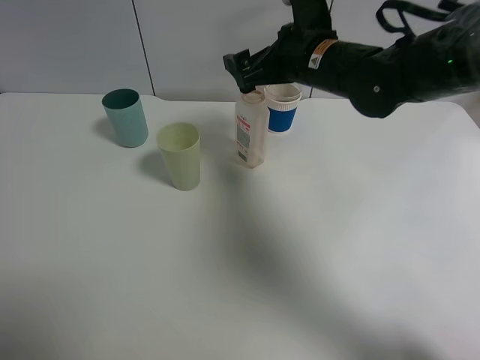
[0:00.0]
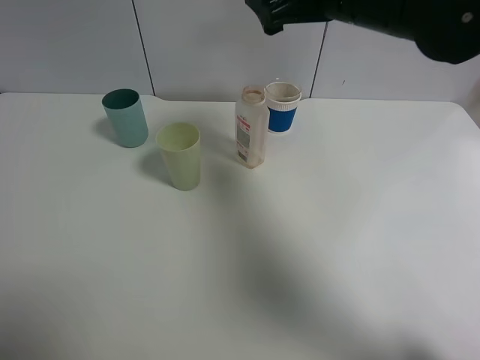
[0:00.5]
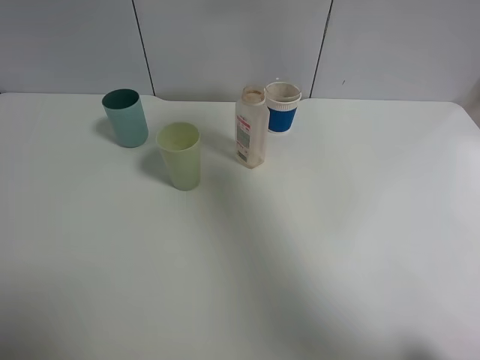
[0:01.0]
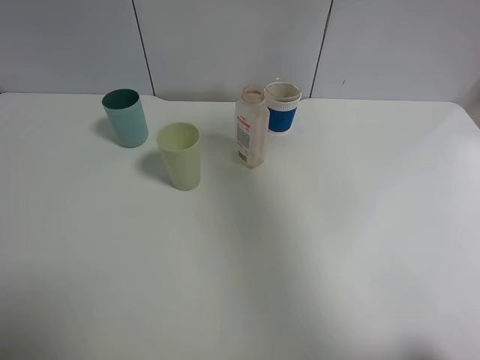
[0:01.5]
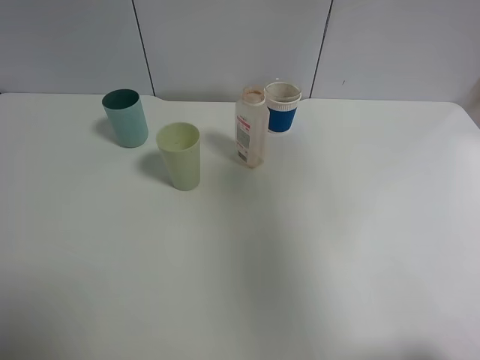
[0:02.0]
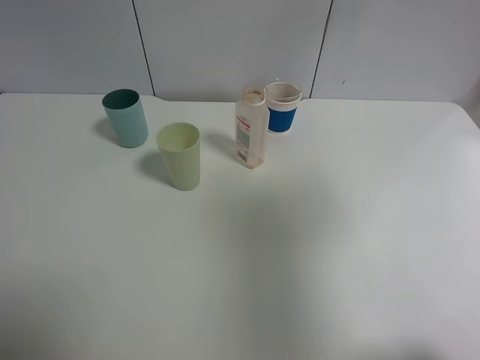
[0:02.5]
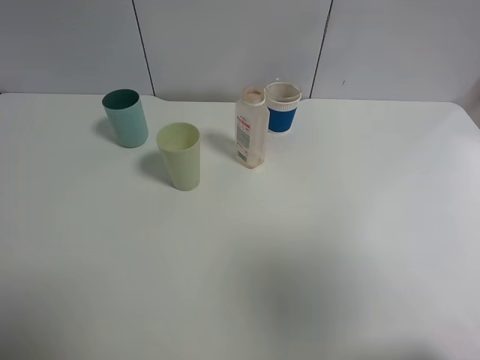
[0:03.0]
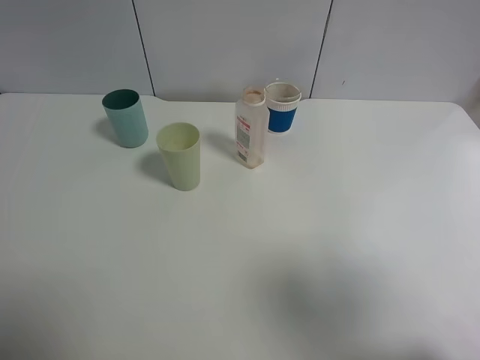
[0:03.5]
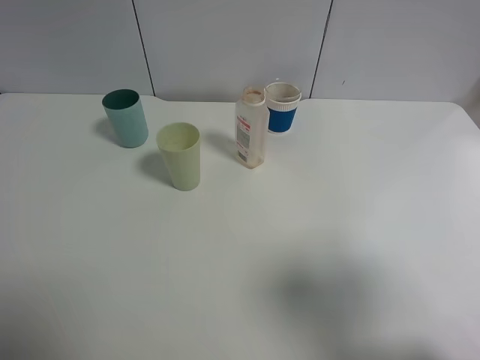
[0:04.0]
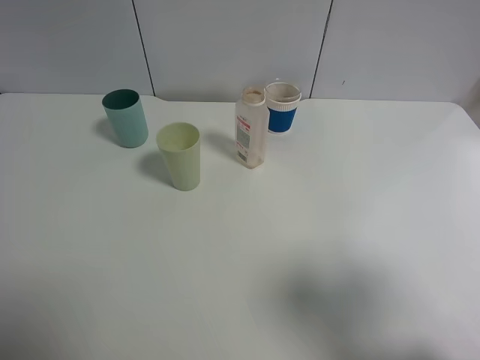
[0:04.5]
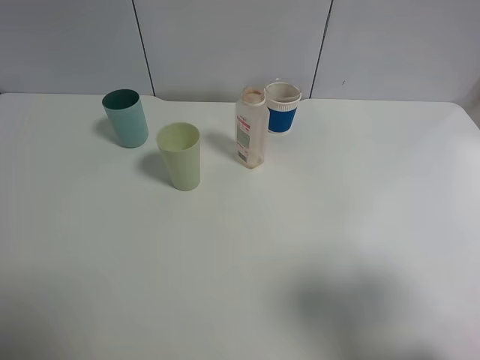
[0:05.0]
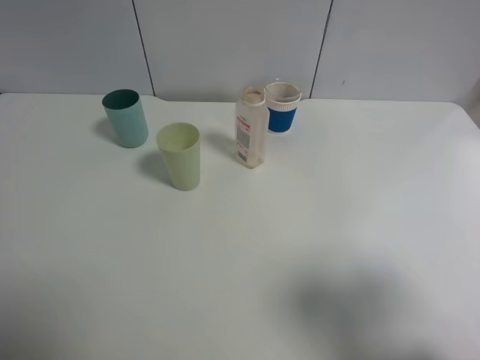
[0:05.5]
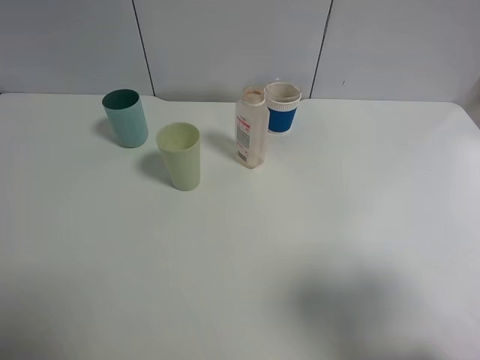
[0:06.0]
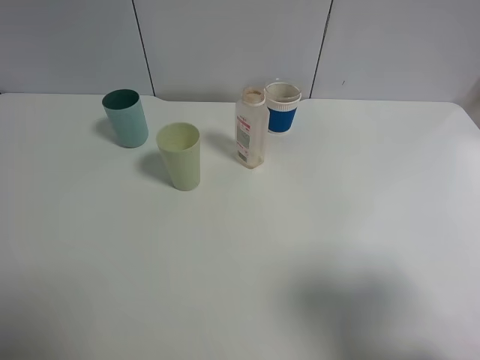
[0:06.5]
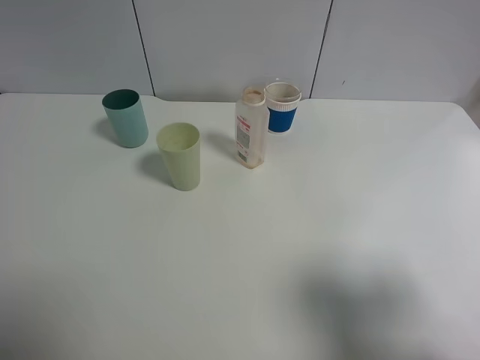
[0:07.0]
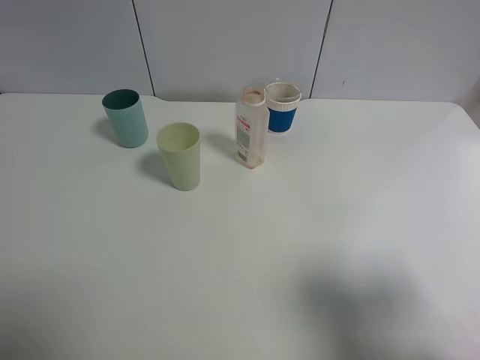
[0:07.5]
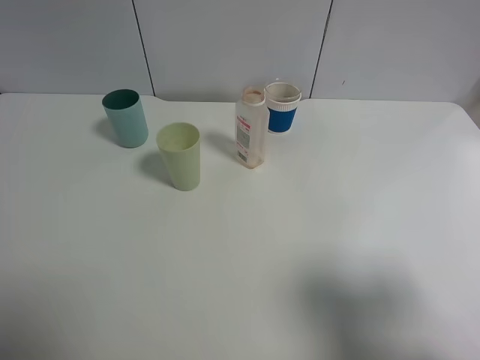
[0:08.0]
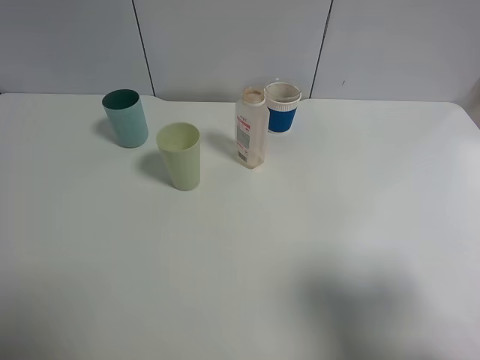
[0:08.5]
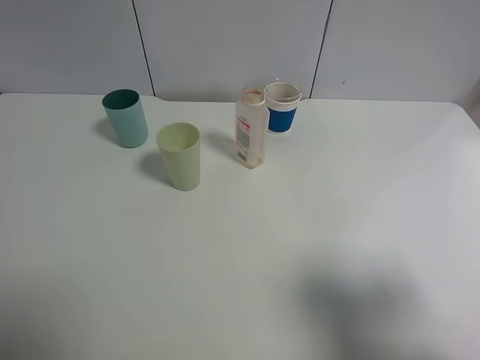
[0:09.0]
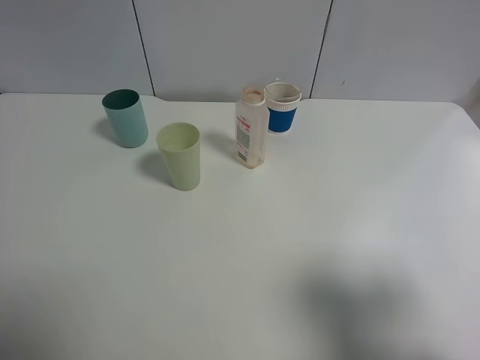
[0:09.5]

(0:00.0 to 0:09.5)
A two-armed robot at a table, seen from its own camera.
Task of the whole recording: use a gripper to hold the bottle of the drink and pour it into a random cup.
0:00.0 - 0:02.0: The right gripper moves upward, backward and to the right, about 35 cm.
0:02.0 - 0:04.0: The right gripper moves downward and backward, some 20 cm.
0:07.5 - 0:09.5: Neither gripper changes place.

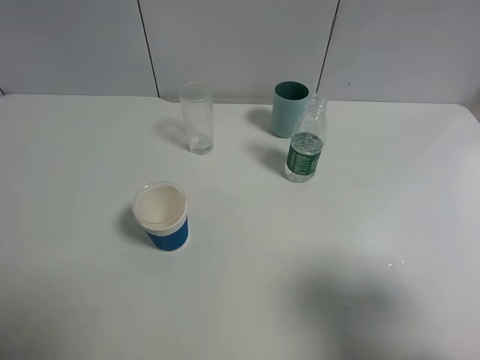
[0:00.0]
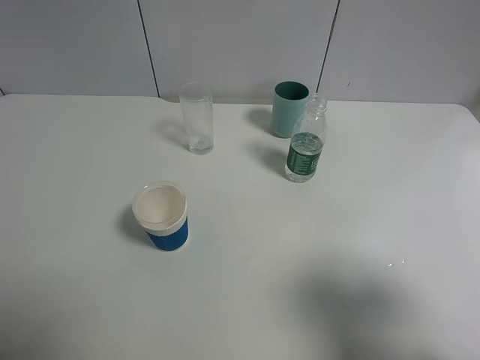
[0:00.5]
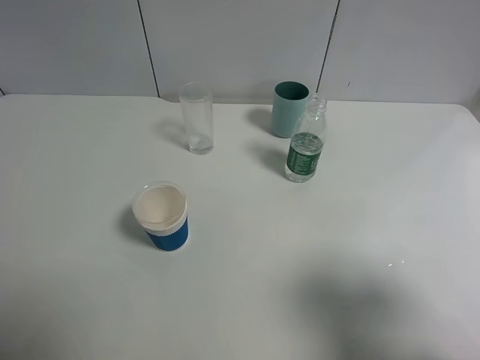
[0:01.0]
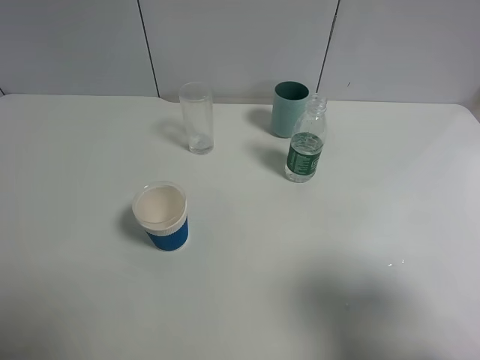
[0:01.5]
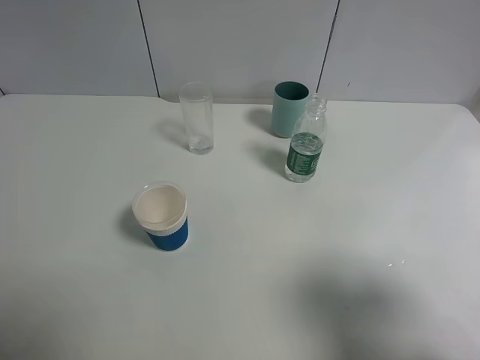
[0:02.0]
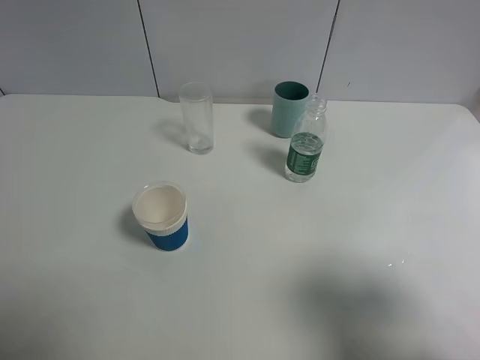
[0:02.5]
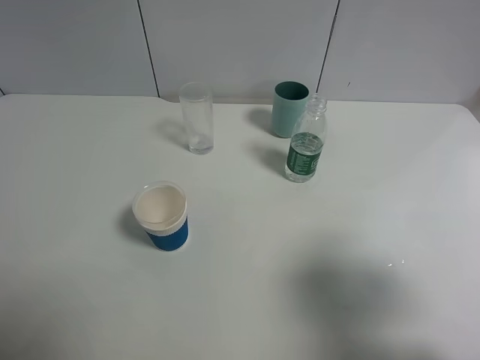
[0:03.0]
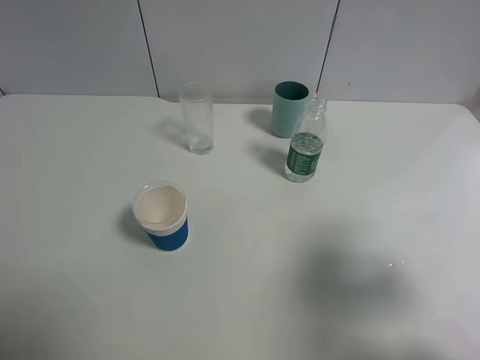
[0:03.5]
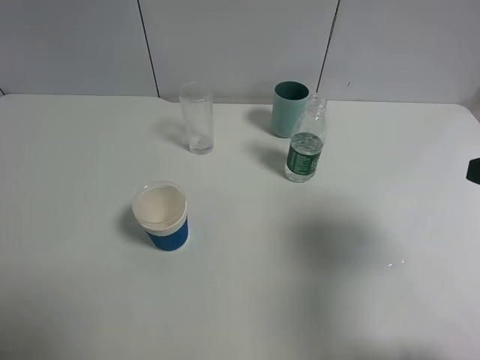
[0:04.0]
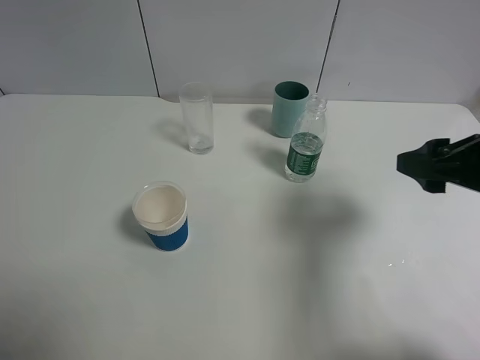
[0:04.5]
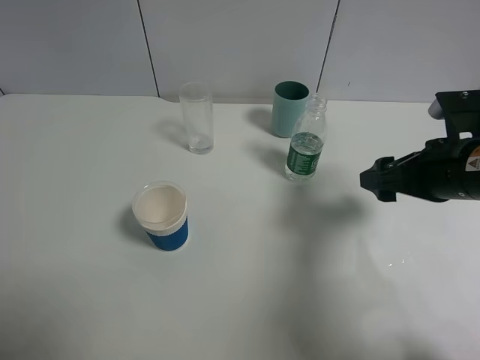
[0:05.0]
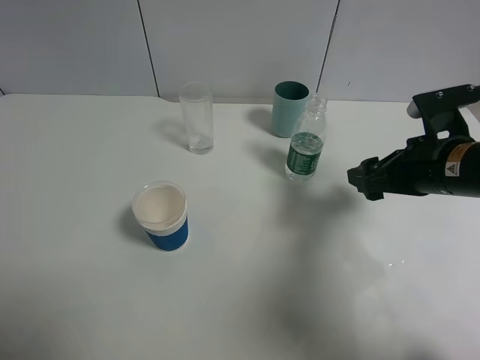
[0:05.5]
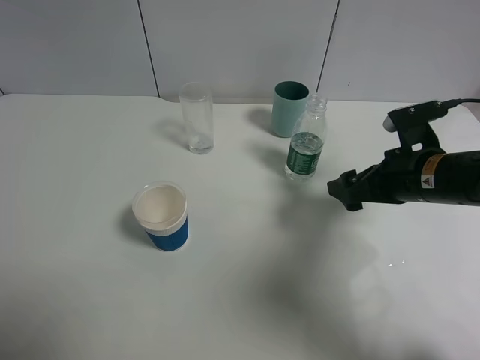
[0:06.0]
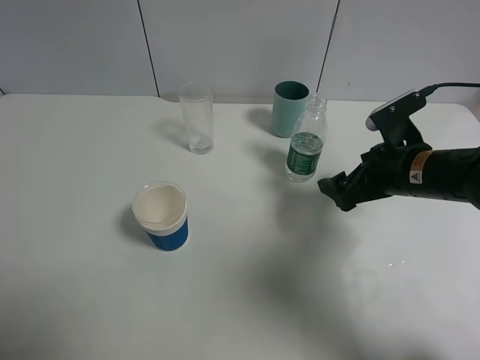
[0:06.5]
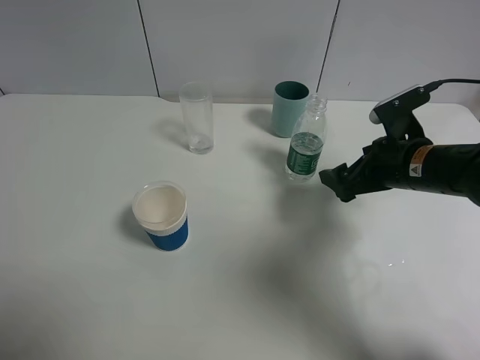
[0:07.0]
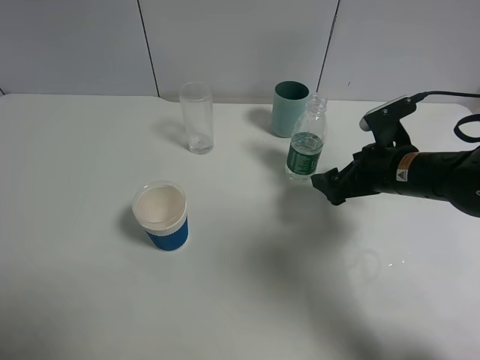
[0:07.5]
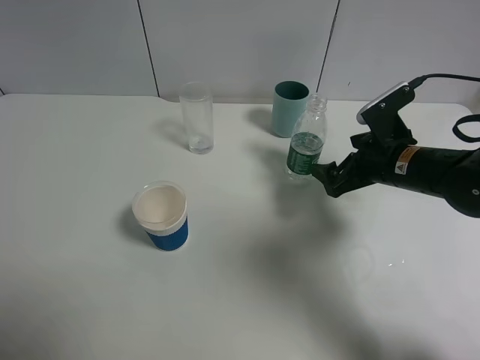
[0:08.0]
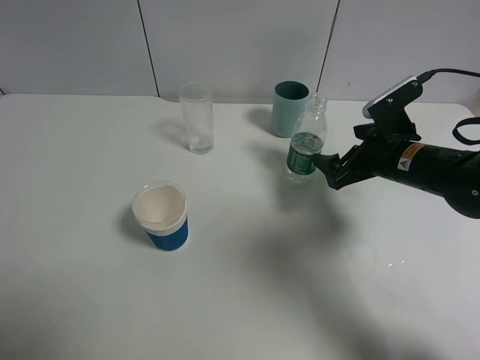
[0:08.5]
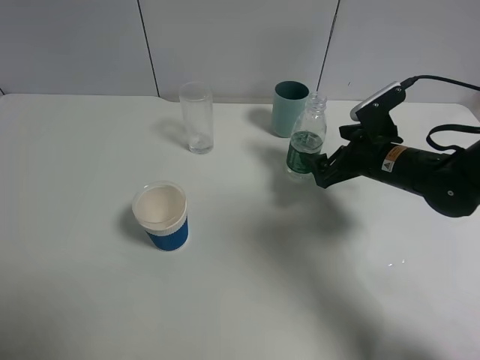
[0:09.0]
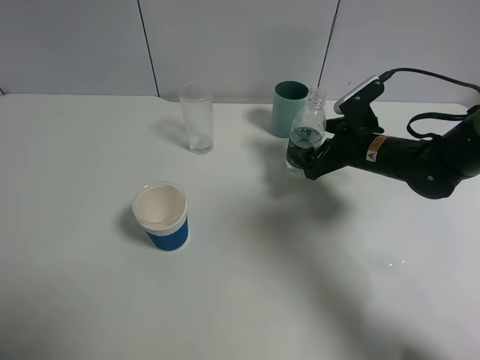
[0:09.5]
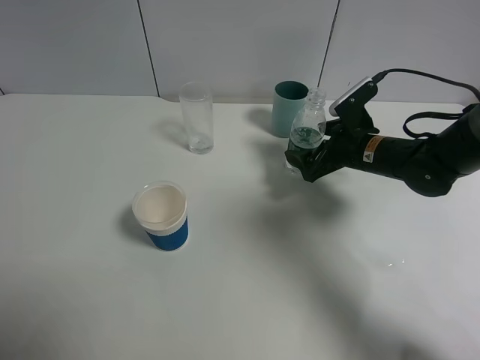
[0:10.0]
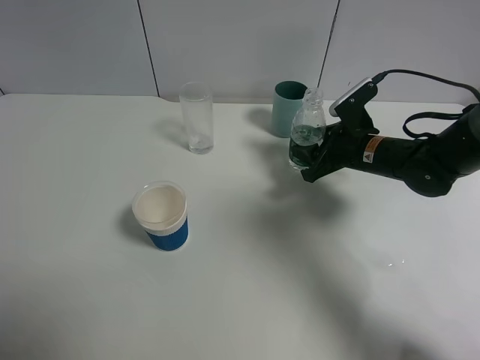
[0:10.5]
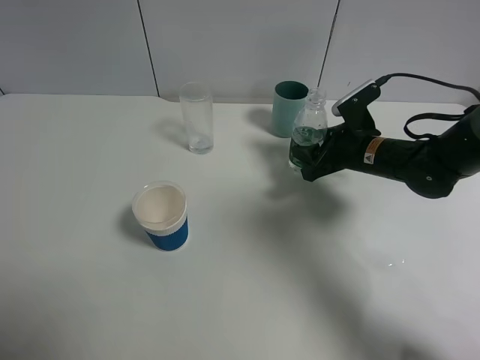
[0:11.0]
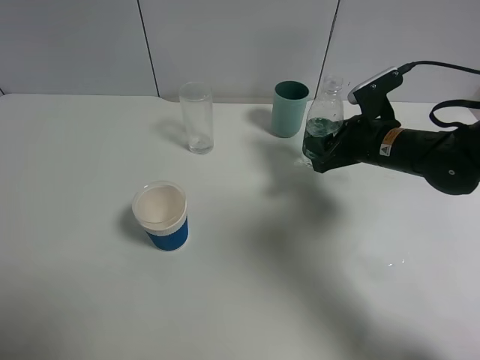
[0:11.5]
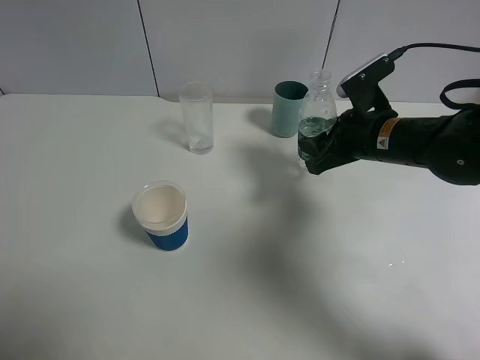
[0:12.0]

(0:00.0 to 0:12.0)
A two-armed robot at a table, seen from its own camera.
Task of the whole recording: use a gripper to hold the bottle of the drink and pour it into a random cup.
Step, 0:00.0 - 0:10.0: Grasp the mineral water bottle with the right gripper.
0:00.0 - 0:02.0: Both grippers stay put.
0:02.0 - 0:04.0: The right gripper moves forward, approximately 10 cm.
0:04.0 - 0:06.0: The right gripper heads downward, forward and to the left, covering approximately 20 cm.
0:08.0 - 0:10.0: The right gripper is displaced forward by about 5 cm.
0:10.0 - 0:12.0: The right gripper moves upward, roughly 5 cm, and closes its fingers.

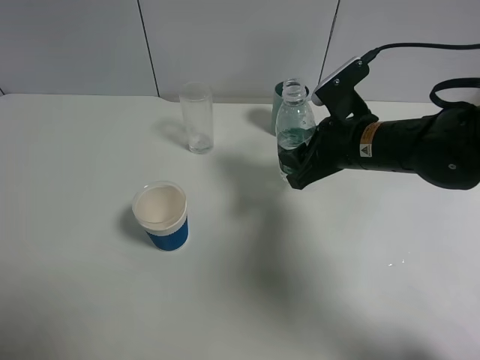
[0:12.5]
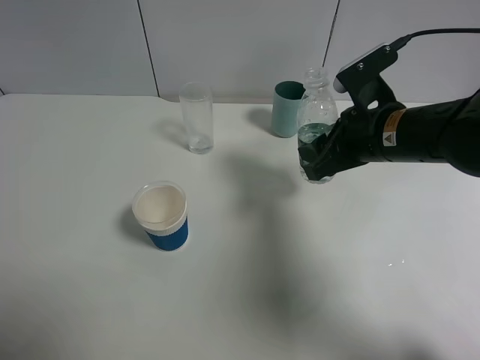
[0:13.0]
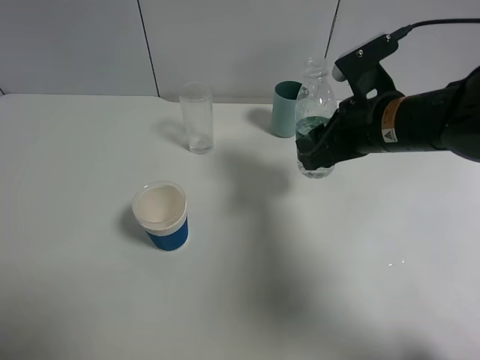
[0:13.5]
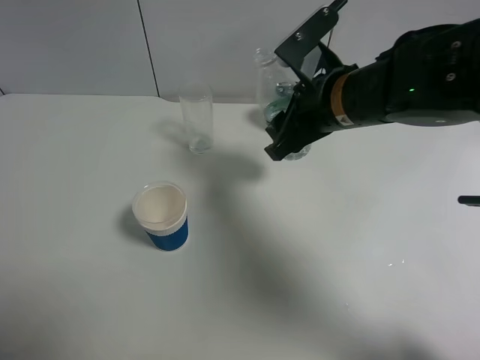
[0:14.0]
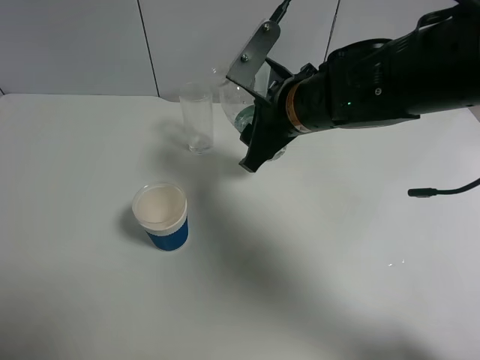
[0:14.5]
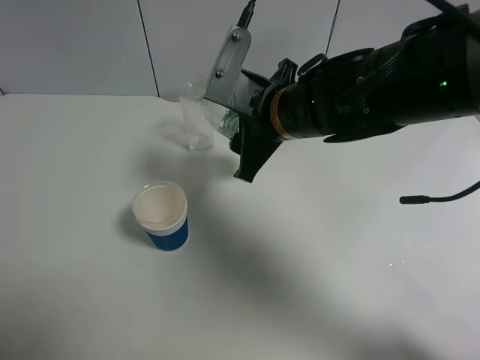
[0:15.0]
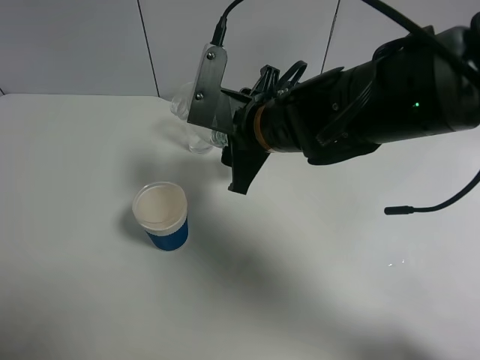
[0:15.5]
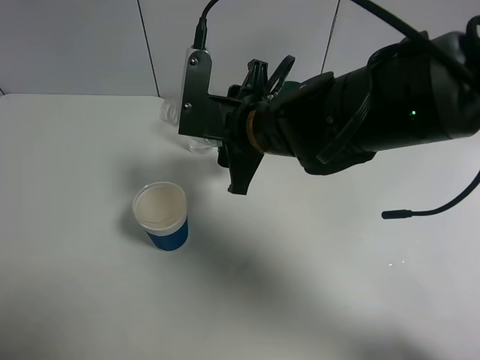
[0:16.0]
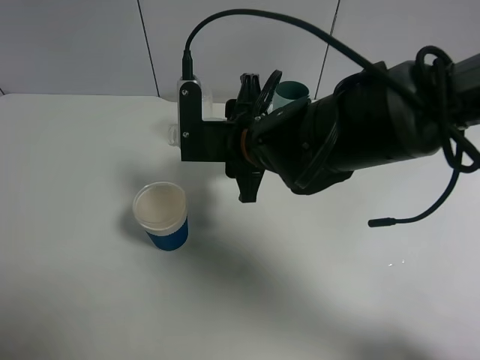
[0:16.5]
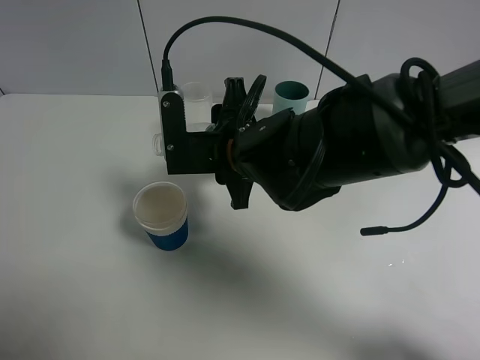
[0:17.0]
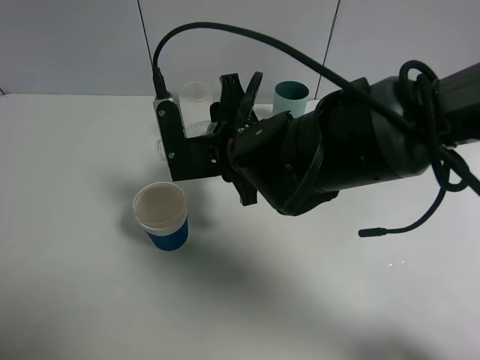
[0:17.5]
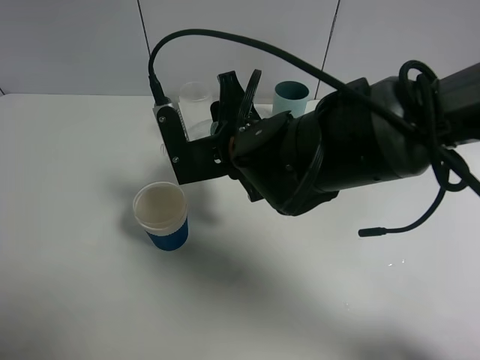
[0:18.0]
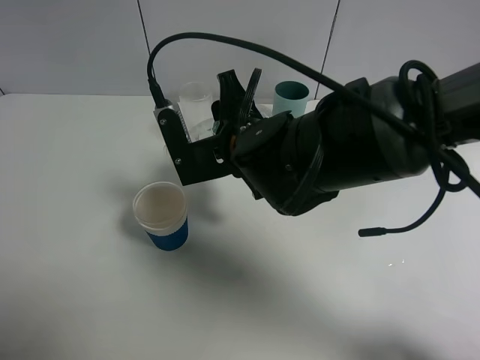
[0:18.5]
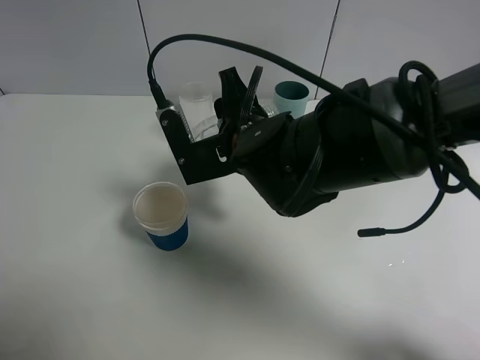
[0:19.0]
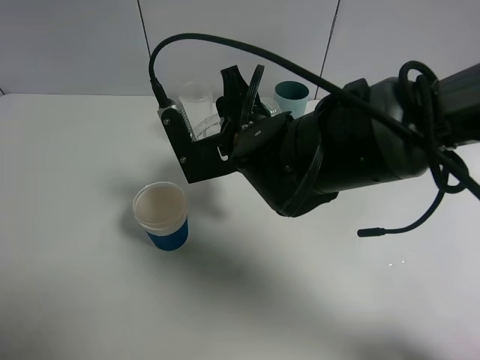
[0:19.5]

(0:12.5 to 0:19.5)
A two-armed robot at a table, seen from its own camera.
Task of the whole recording: use a gripper to hold the bottle of the drink and pour it into a random cup.
0:12.5 - 0:14.5: The right gripper travels to the left by some 10 cm.
0:14.5 - 0:16.0: The right gripper changes place by some 5 cm.
0:17.5 - 0:19.5: The grippers make only small movements.
